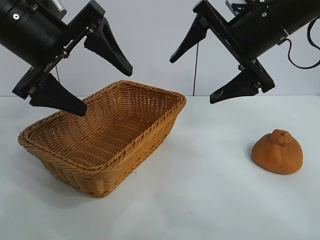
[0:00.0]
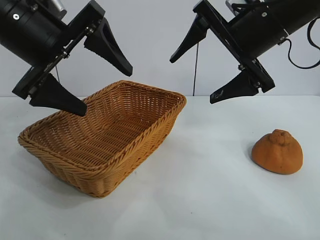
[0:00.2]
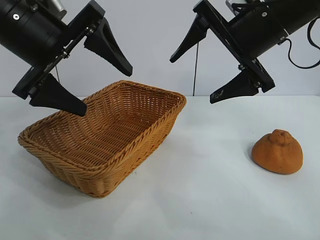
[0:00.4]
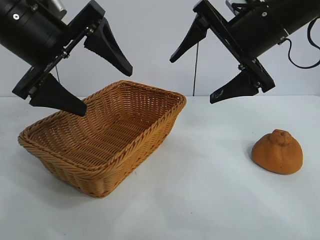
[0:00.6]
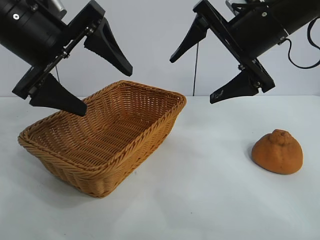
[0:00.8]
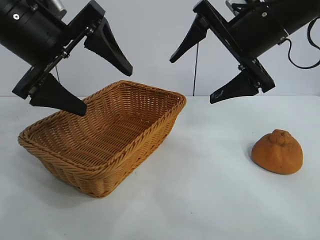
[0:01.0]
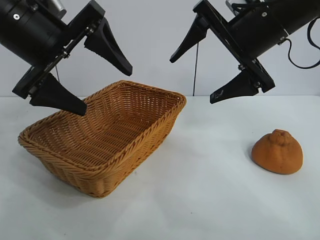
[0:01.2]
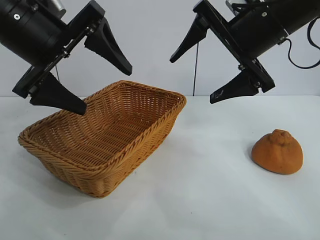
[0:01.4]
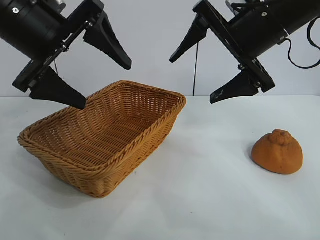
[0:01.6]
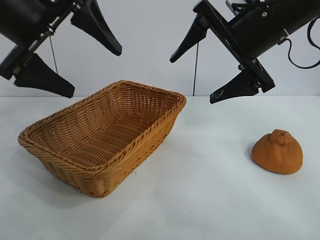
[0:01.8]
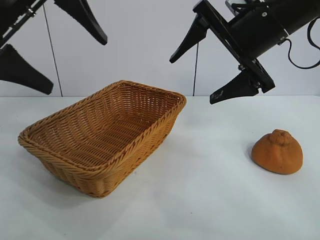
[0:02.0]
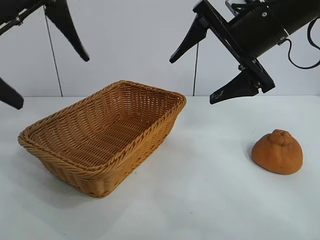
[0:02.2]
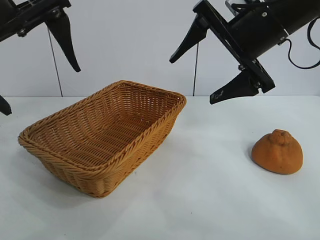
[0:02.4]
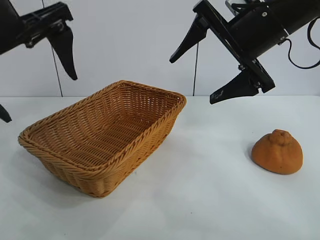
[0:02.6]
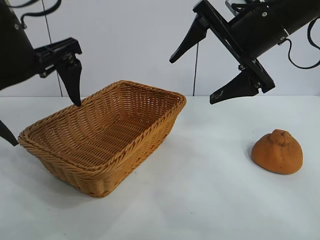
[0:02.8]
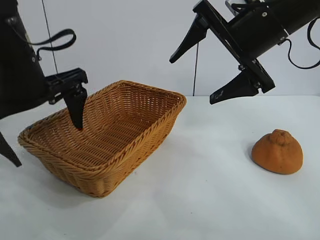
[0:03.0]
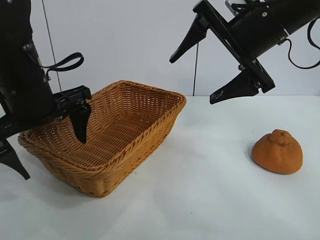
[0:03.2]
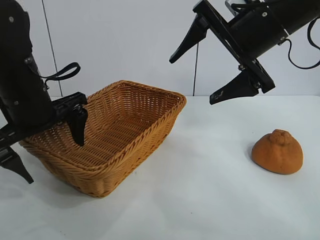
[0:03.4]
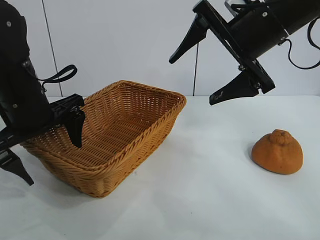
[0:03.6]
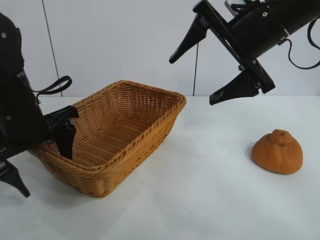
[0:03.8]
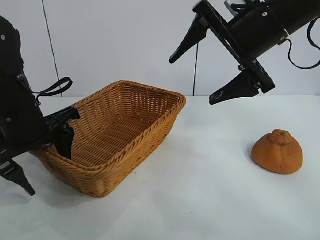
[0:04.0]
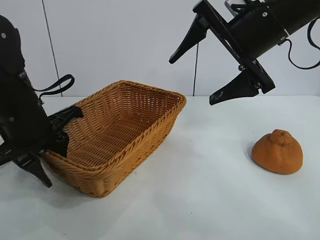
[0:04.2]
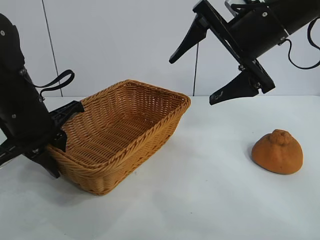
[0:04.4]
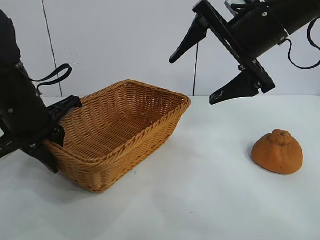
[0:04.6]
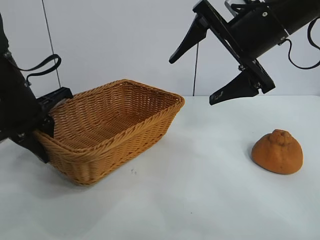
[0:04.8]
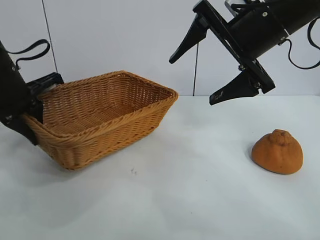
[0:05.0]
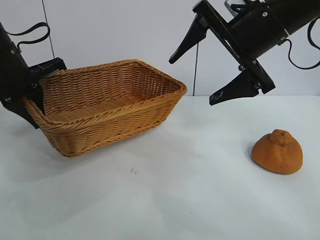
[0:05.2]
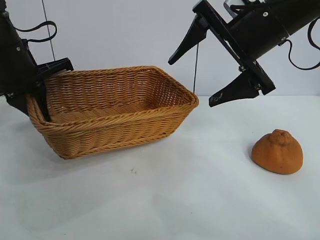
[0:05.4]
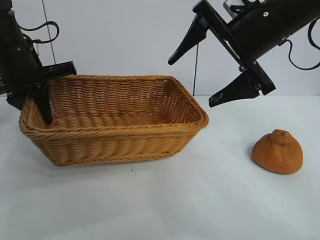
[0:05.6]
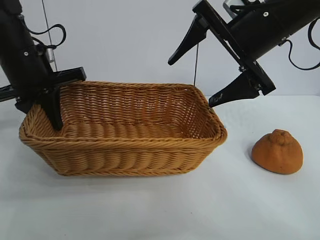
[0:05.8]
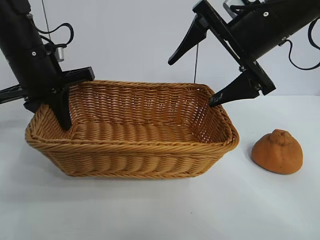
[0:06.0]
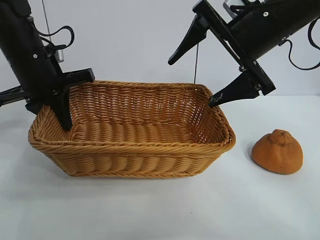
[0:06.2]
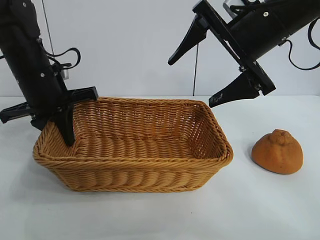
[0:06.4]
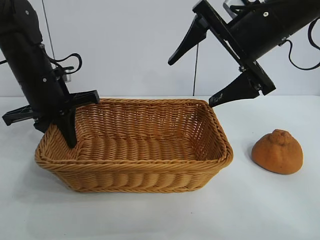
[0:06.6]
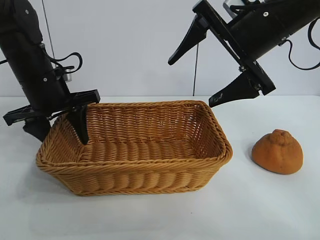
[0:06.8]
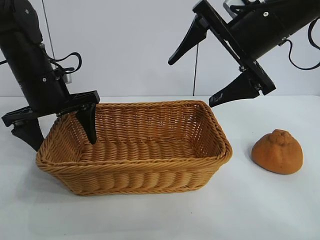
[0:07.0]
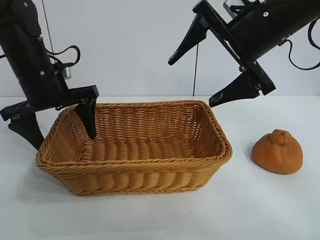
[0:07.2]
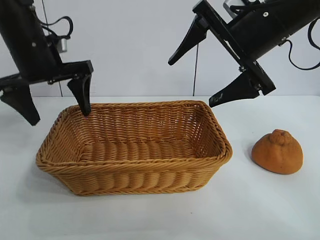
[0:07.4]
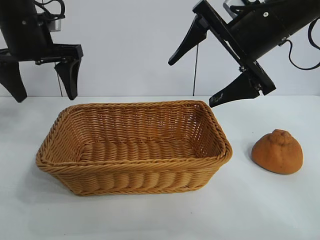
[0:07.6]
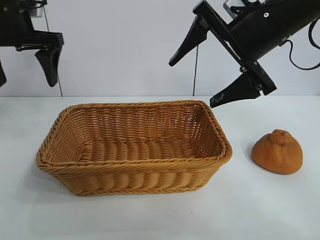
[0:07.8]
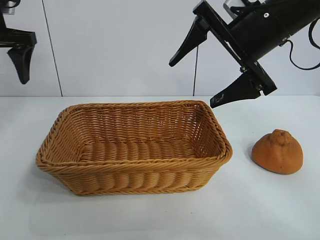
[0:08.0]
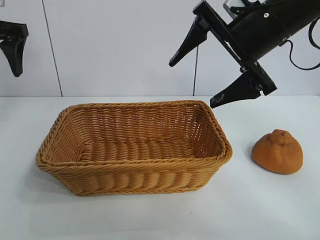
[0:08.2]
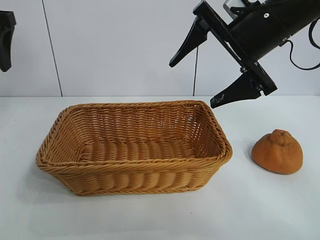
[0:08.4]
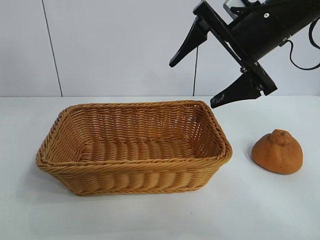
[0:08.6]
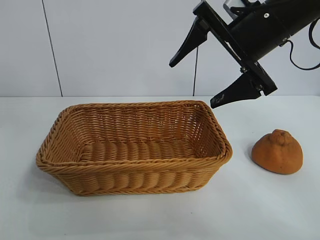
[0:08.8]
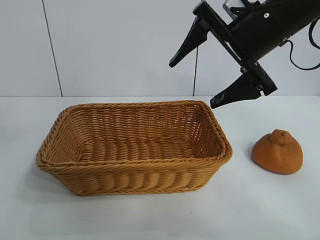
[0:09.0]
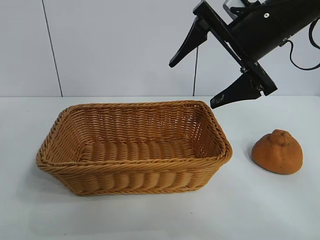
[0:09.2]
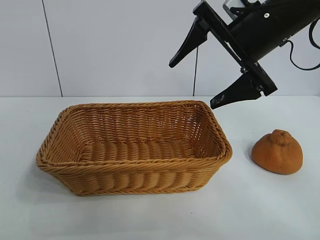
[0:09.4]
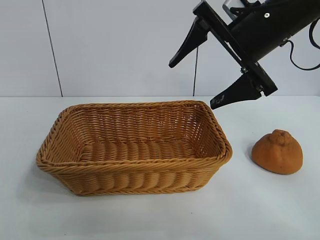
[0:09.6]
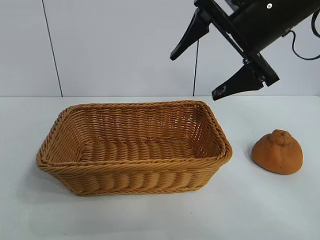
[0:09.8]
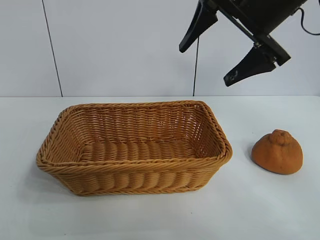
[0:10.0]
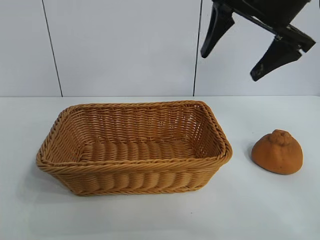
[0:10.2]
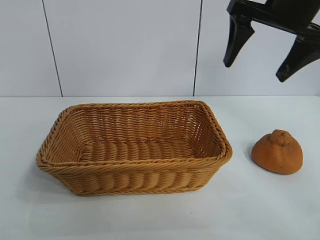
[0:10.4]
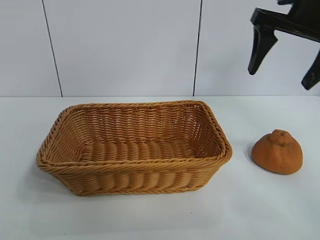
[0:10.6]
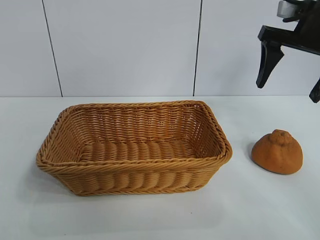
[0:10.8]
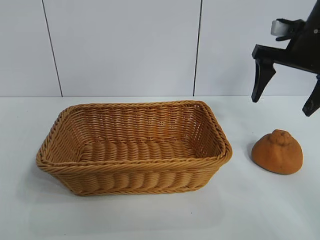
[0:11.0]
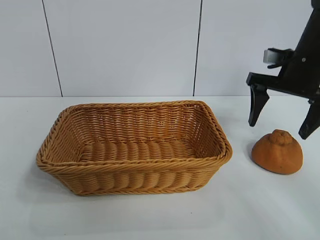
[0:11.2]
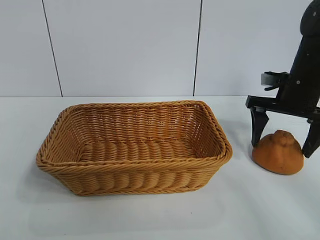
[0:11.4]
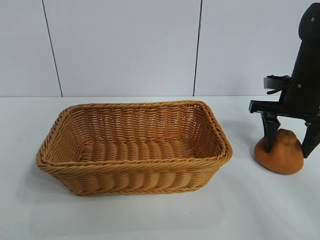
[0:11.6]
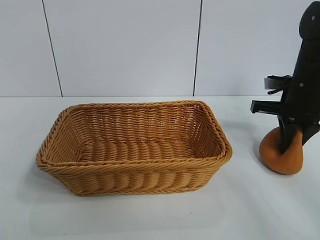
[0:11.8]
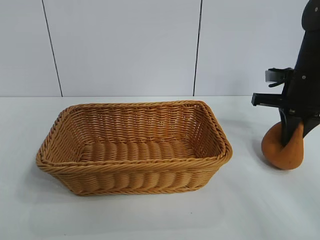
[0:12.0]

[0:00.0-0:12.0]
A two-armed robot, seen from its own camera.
Task of the whole recording: pick up the orange and put it into the basket.
Step, 0:01.4 to 0:04.2: Grasp the basket with left gripper.
Step, 0:04.6 to 0:07.0: Place the basket in the center of view with left gripper.

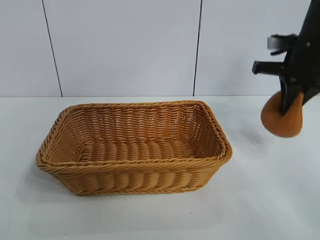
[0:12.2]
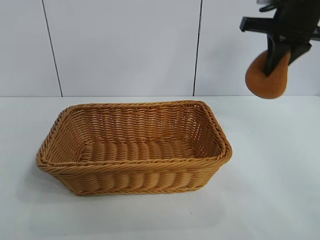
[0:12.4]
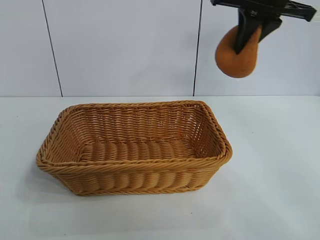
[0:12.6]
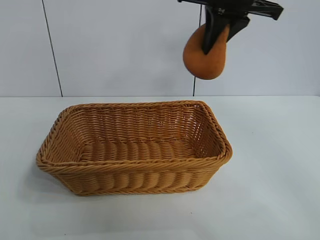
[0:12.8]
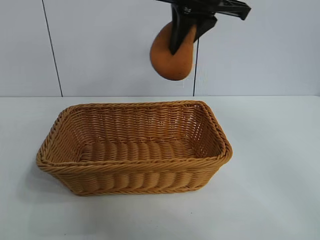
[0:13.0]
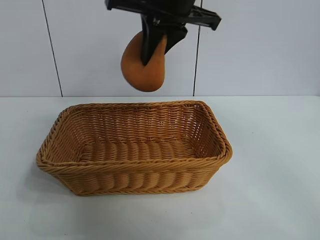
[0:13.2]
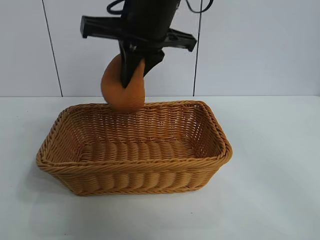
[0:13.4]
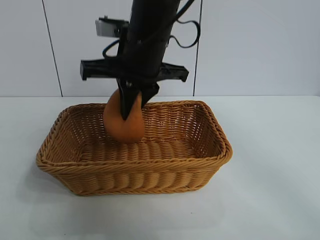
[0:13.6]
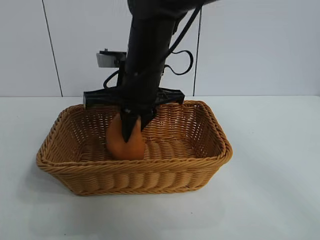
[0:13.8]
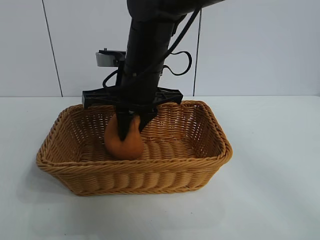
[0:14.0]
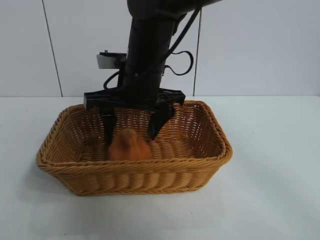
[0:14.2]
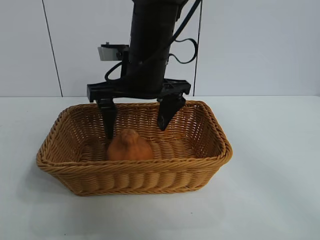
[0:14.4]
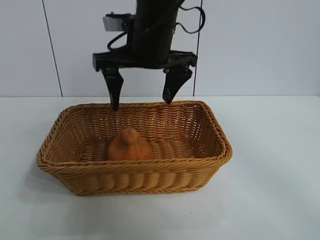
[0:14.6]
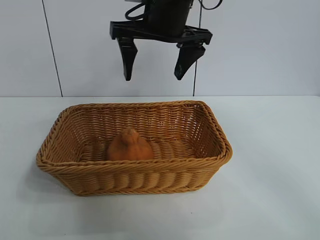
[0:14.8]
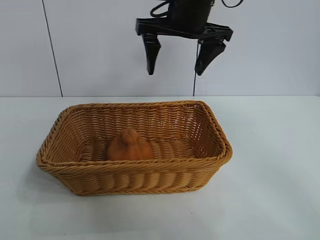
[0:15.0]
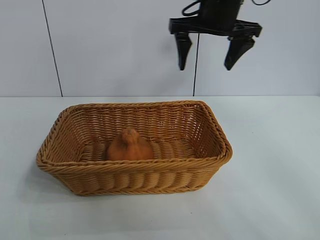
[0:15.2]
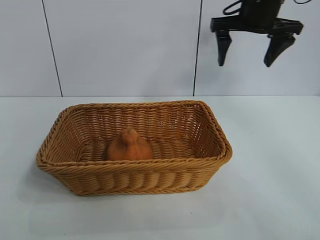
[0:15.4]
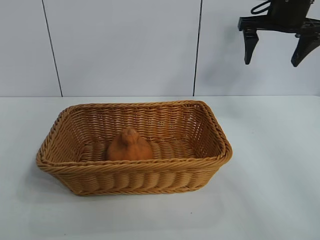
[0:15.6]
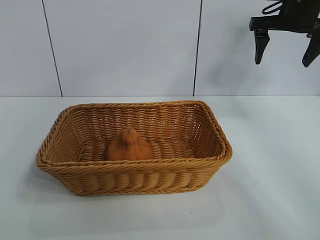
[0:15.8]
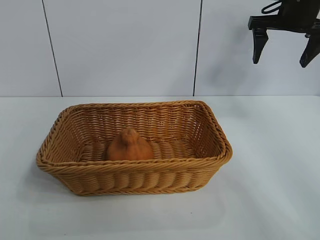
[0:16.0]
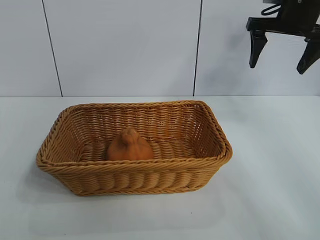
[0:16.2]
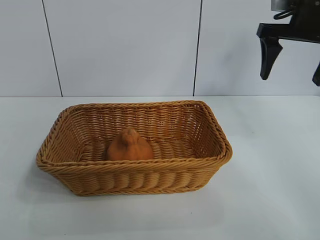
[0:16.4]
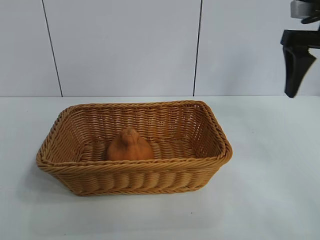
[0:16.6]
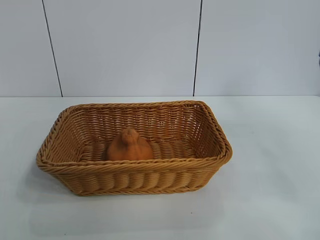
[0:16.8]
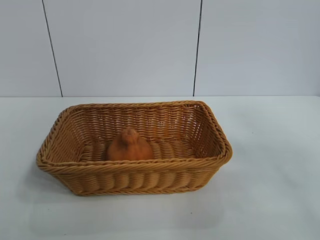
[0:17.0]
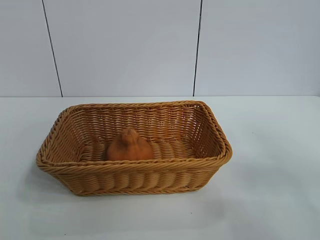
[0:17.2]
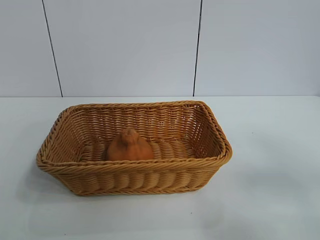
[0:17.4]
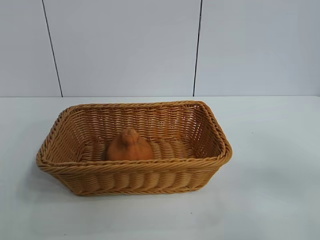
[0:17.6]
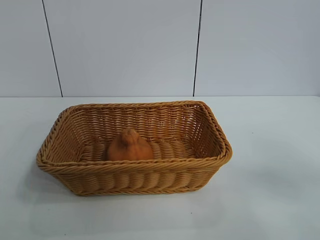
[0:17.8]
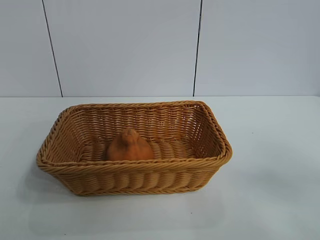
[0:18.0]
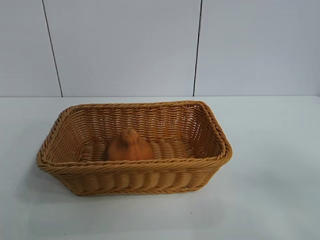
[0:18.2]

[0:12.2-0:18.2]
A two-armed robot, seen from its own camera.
Task of the whole recording: pick up the orange and put it into the basket.
Step, 0:12.2 to 0:14.2: Place the orange in the basket with right gripper.

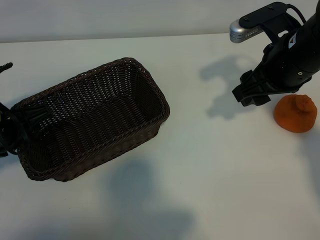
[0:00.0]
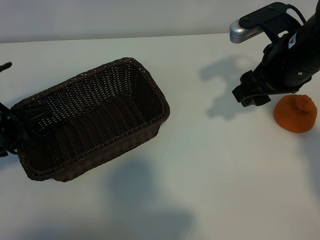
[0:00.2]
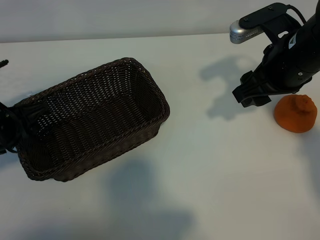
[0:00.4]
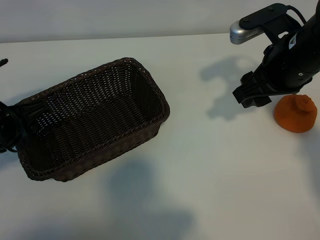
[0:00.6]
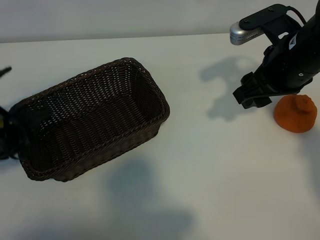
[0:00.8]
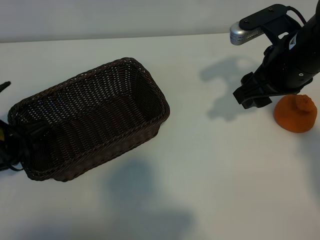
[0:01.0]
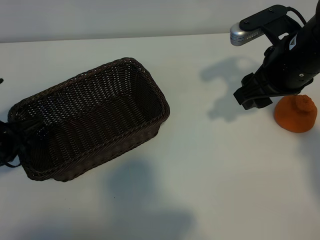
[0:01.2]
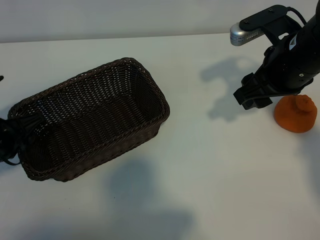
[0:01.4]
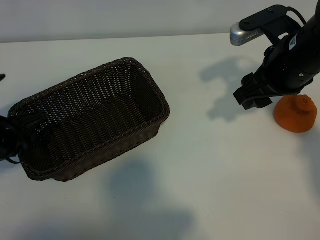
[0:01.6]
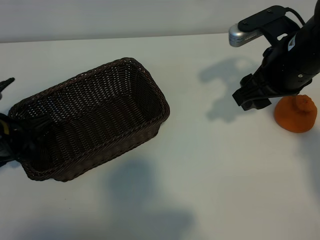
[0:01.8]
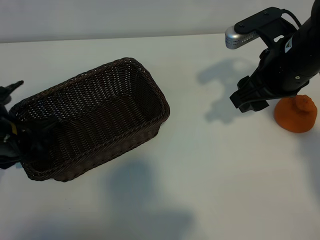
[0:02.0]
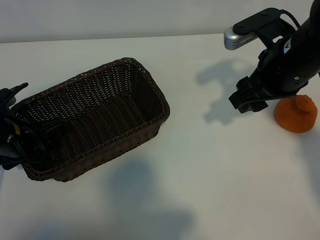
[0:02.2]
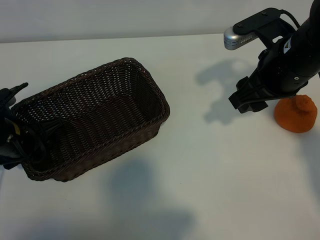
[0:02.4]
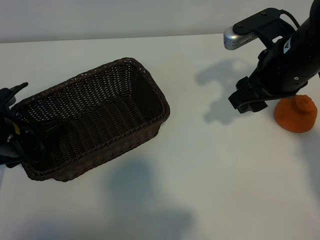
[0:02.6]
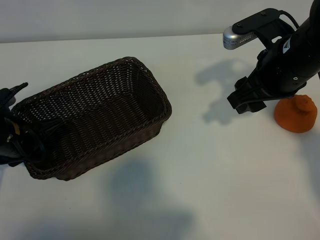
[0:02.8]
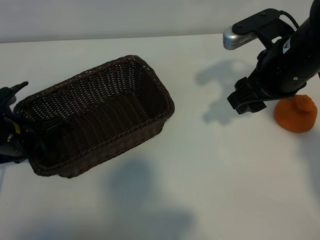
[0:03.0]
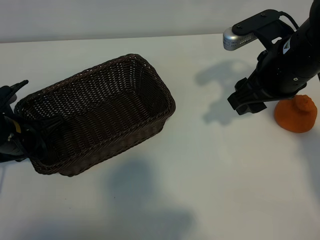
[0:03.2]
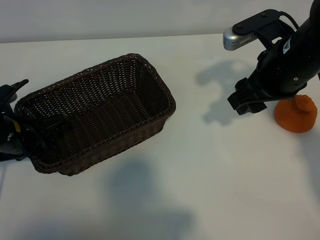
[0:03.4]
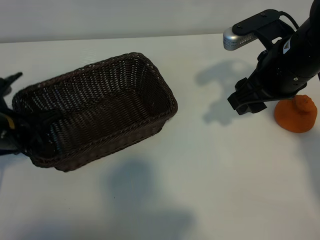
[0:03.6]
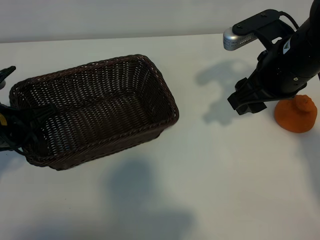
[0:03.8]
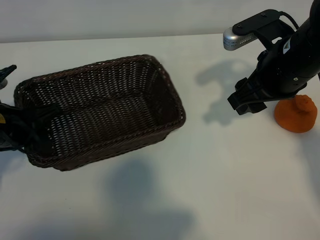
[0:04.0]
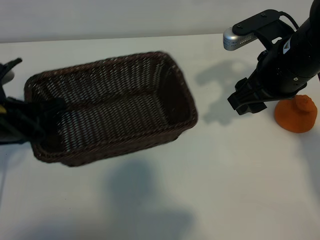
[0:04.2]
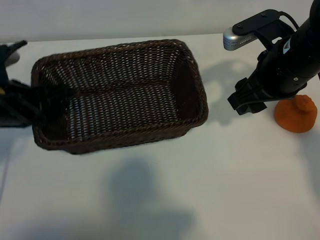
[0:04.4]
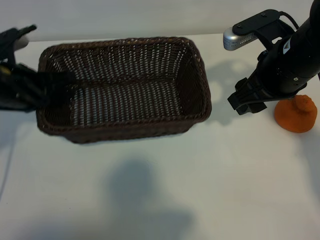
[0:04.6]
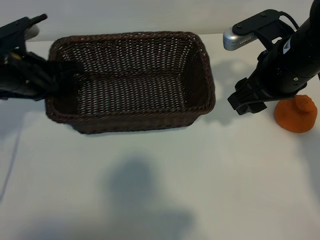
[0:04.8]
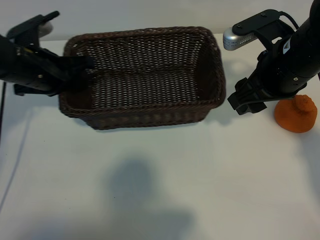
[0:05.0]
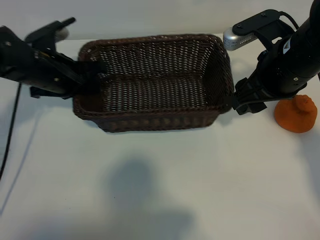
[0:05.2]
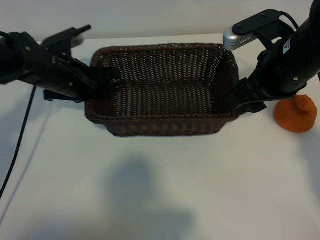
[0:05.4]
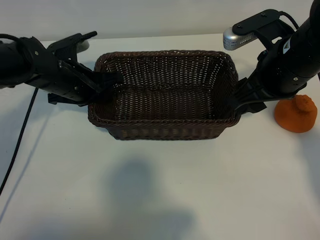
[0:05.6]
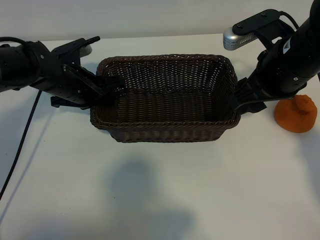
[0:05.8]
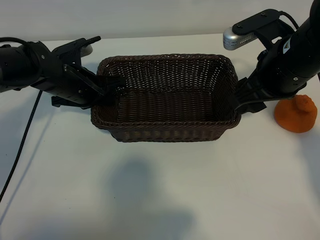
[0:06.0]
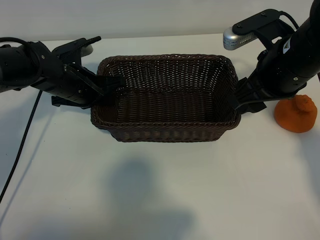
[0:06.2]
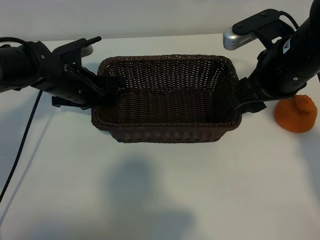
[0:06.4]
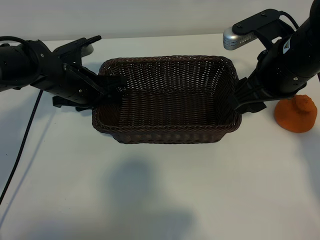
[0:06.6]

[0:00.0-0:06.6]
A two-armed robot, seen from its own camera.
Task of the whole recording: pick up the orange and put it into the basket.
Step, 0:00.0 to 0:03.0: Grasp the basket with left gripper.
Step, 0:03.2 to 0:06.4: Place the basket in the center of view with left gripper.
